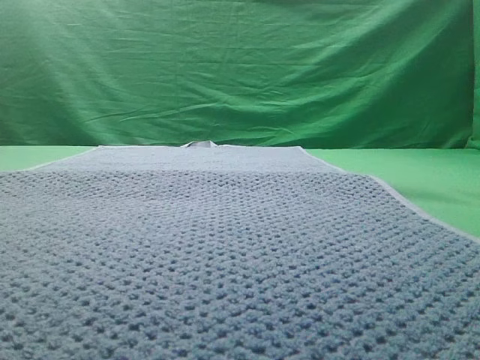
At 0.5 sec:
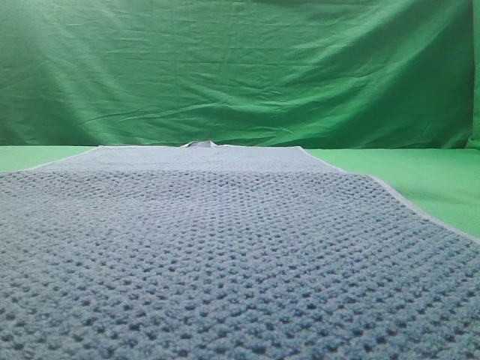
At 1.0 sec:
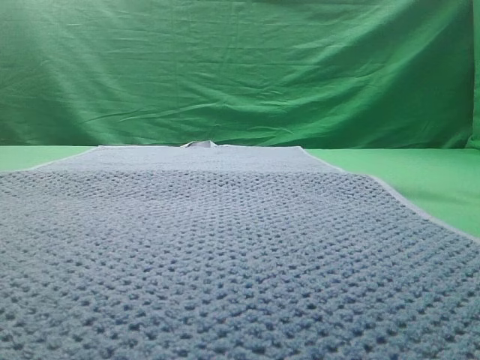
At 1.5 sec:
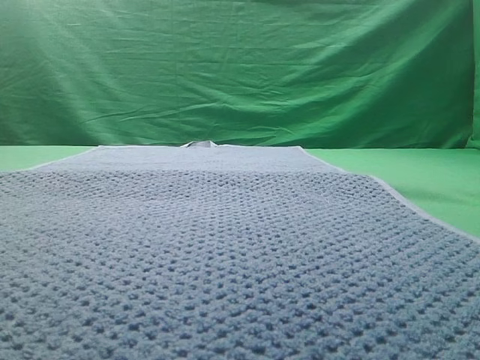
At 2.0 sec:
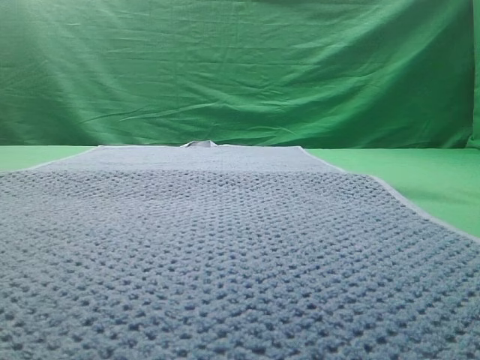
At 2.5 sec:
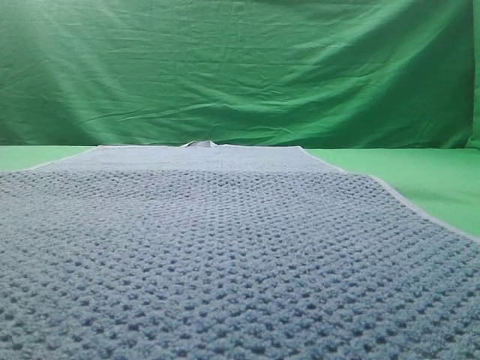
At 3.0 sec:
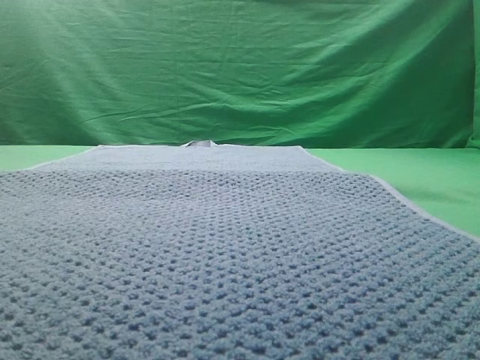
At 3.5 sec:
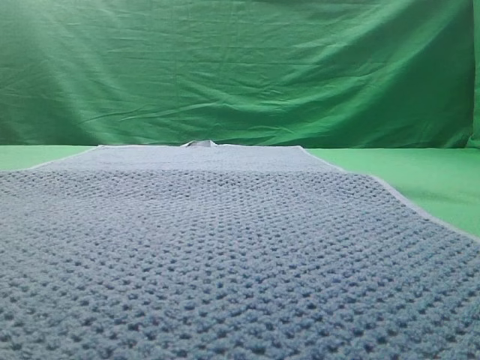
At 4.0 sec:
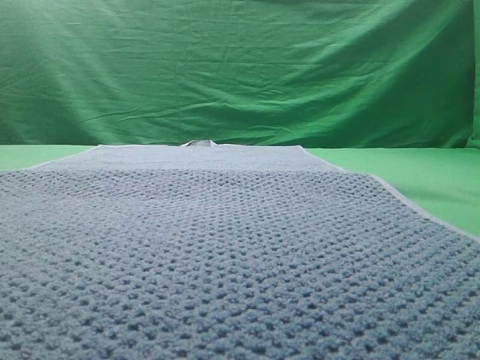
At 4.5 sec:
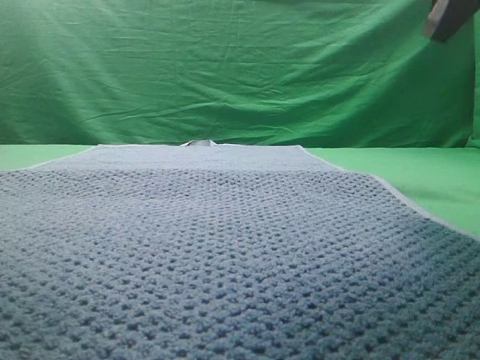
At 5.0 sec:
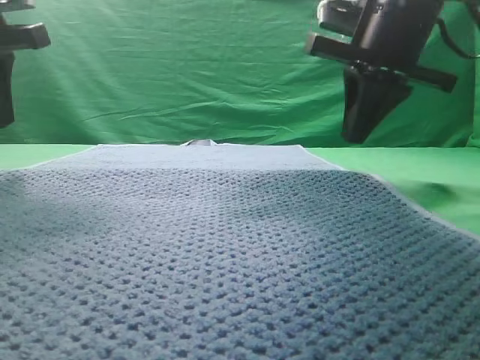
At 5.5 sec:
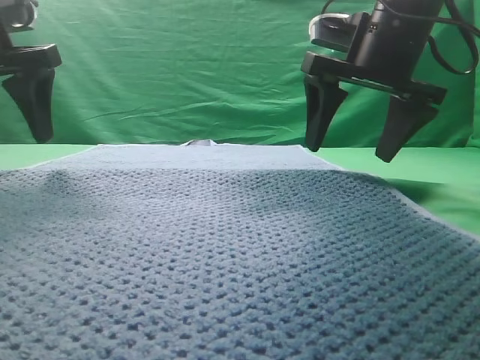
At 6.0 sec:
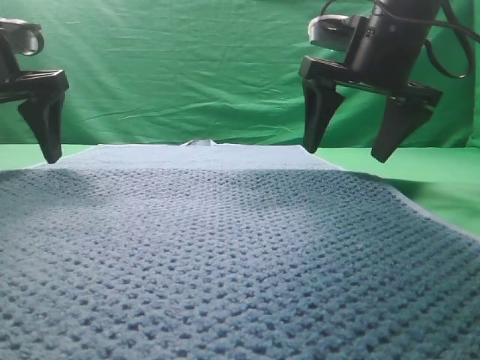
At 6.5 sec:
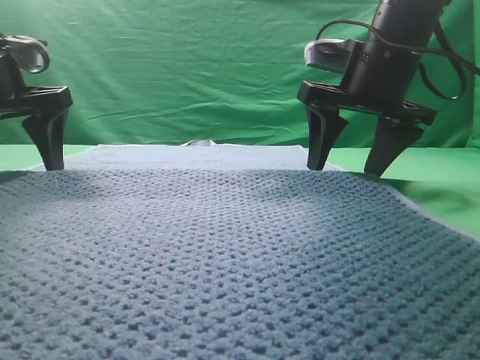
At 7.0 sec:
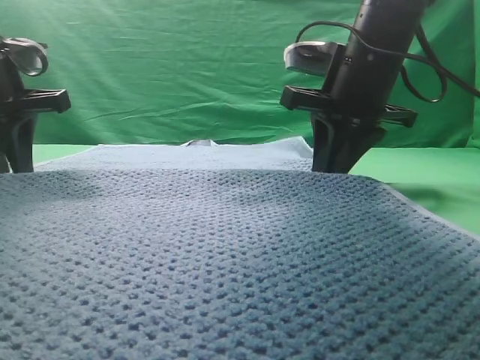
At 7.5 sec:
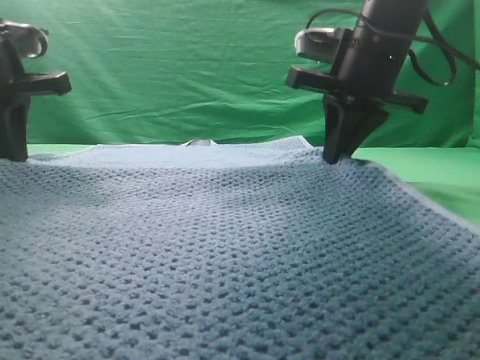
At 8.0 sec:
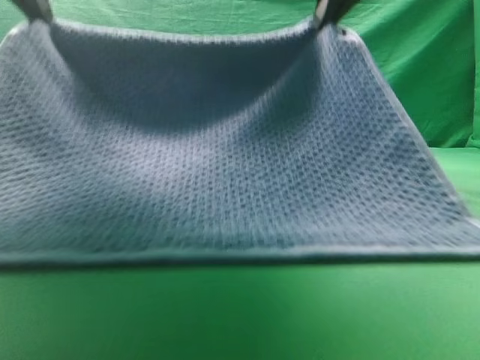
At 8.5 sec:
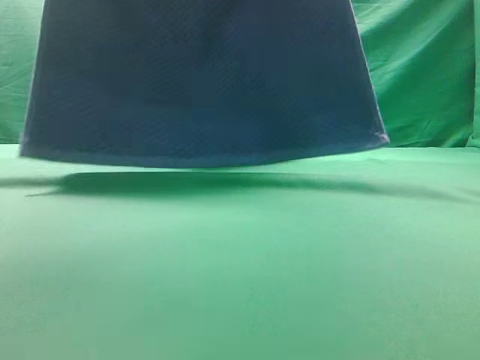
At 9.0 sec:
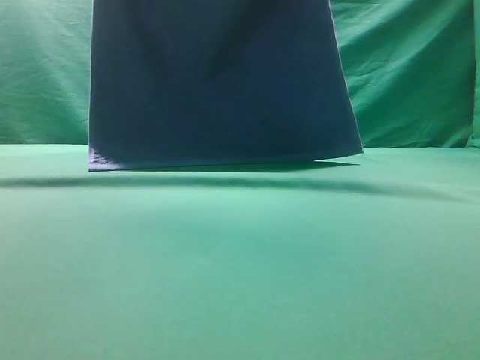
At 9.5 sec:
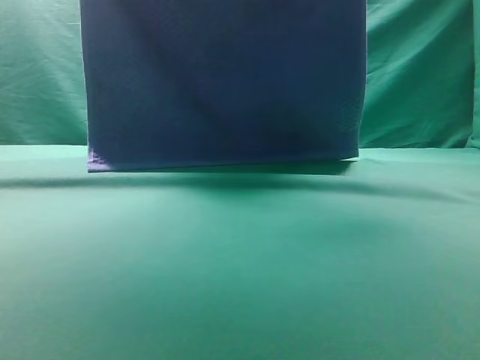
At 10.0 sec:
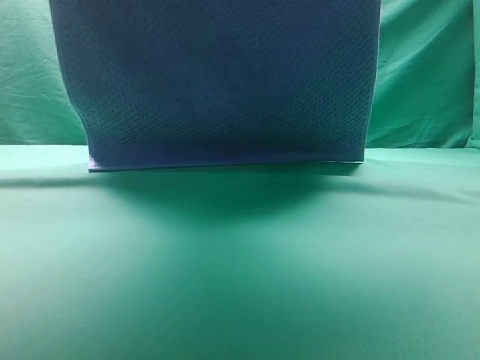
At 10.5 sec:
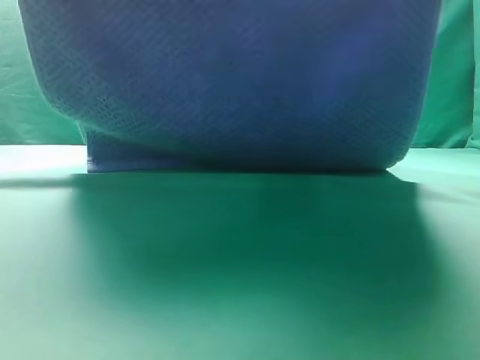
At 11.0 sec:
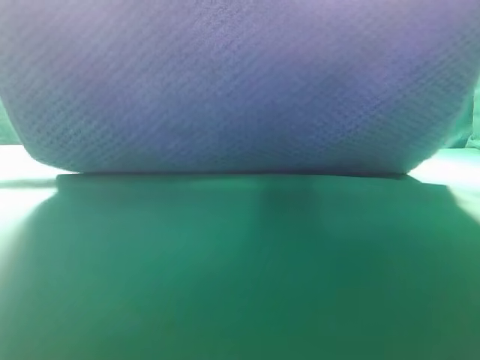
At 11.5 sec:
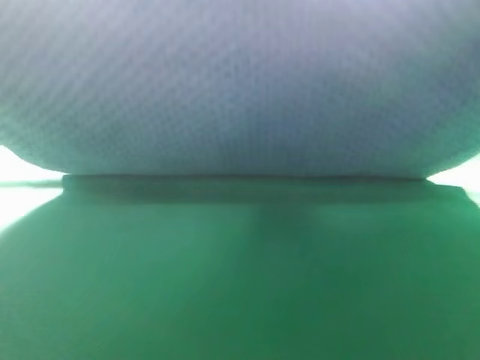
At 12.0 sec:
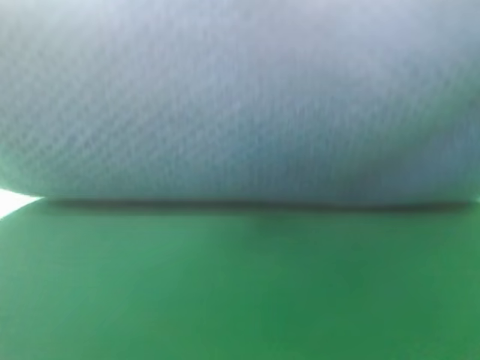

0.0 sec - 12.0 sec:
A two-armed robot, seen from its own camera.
Task of the whole recording: fold the towel on the table twice.
Step, 0.0 sec - 8.5 sec: pick up the towel with two arm.
